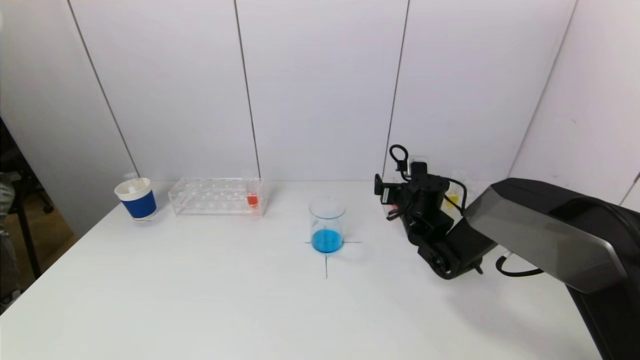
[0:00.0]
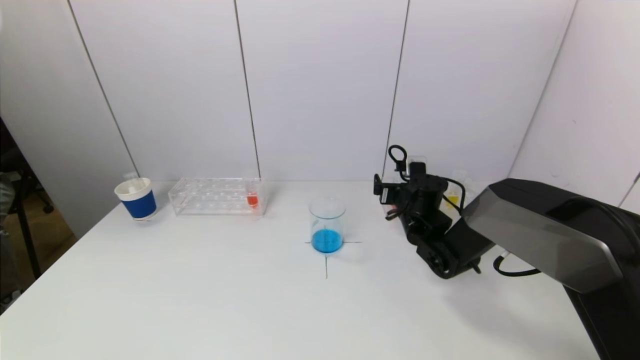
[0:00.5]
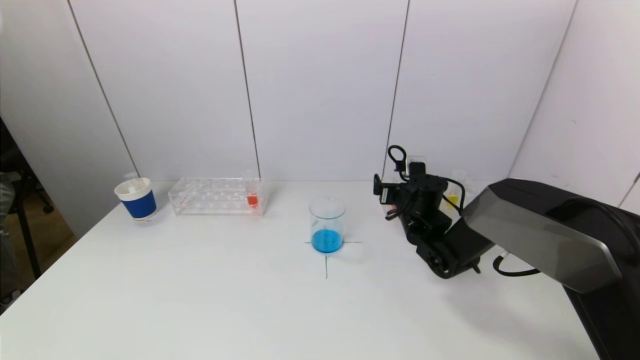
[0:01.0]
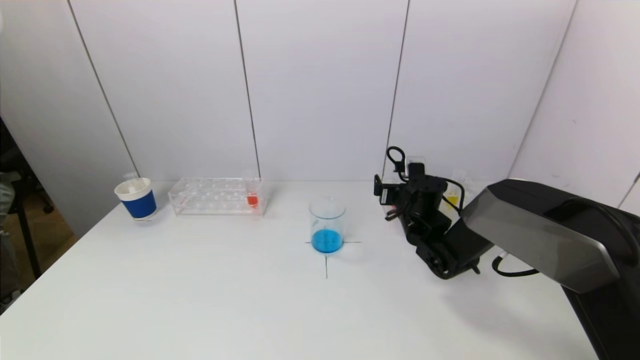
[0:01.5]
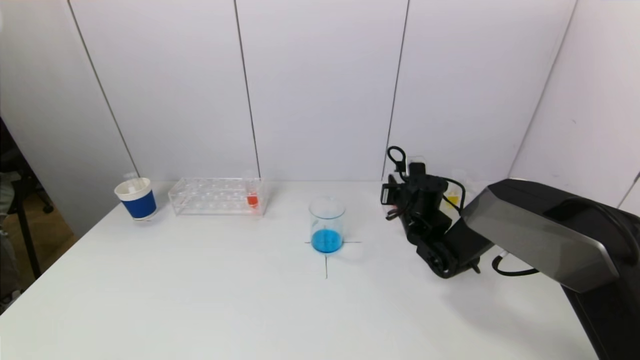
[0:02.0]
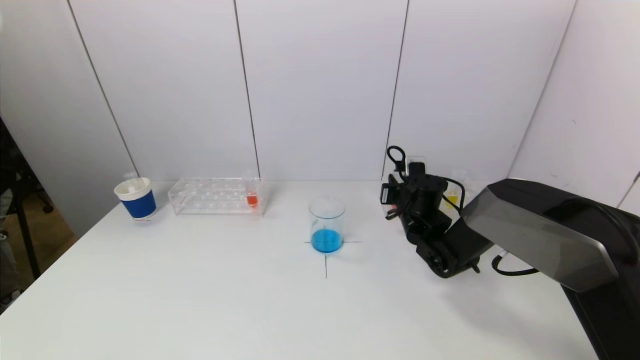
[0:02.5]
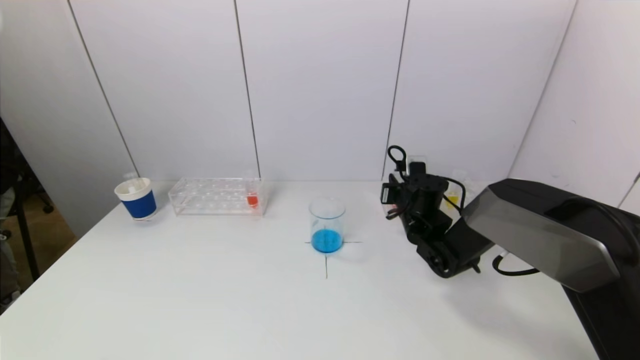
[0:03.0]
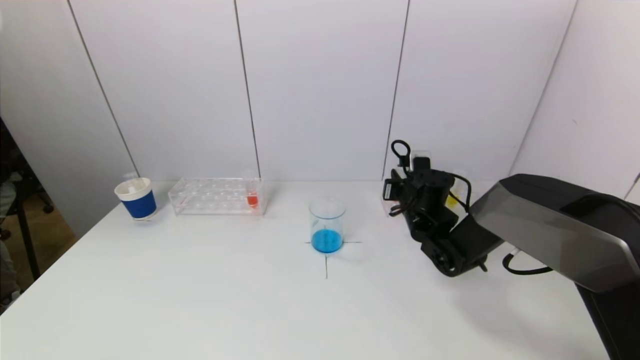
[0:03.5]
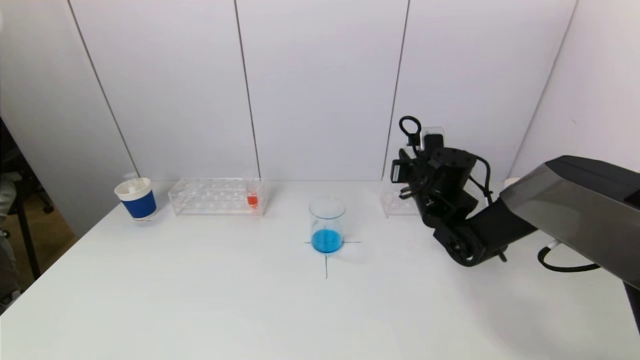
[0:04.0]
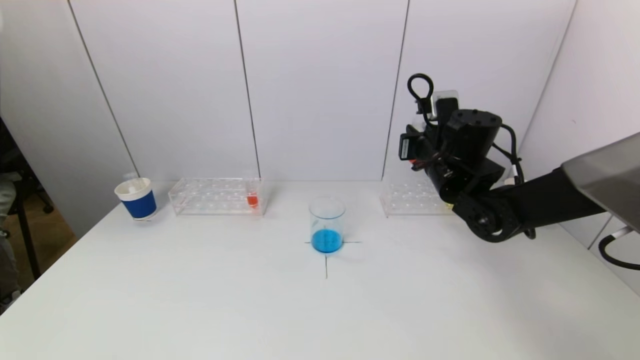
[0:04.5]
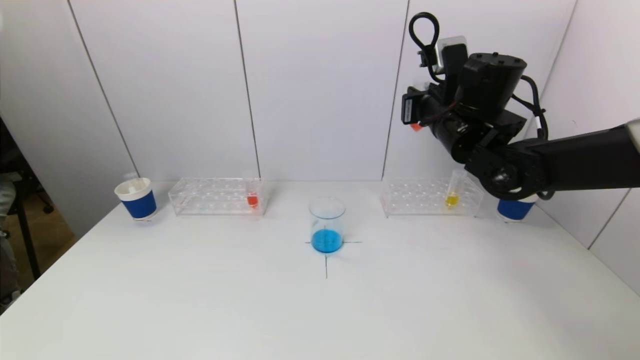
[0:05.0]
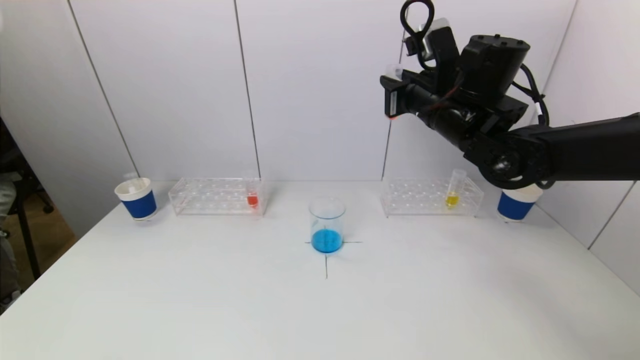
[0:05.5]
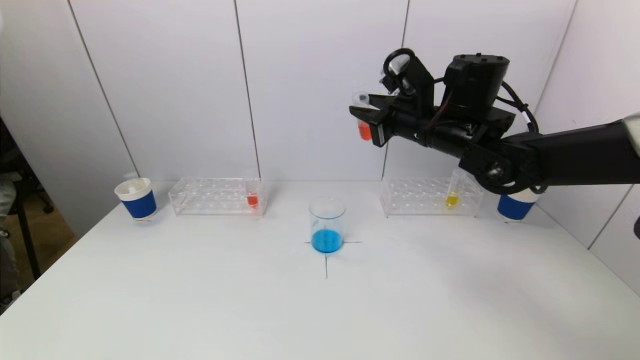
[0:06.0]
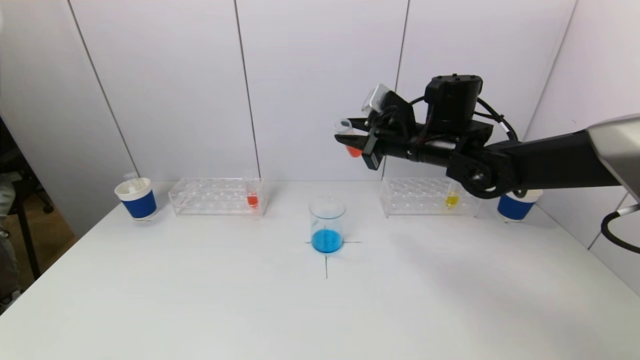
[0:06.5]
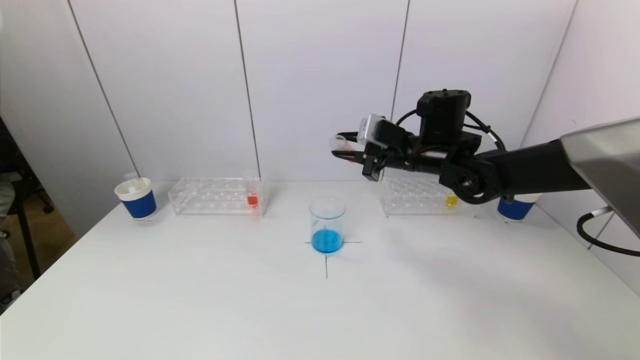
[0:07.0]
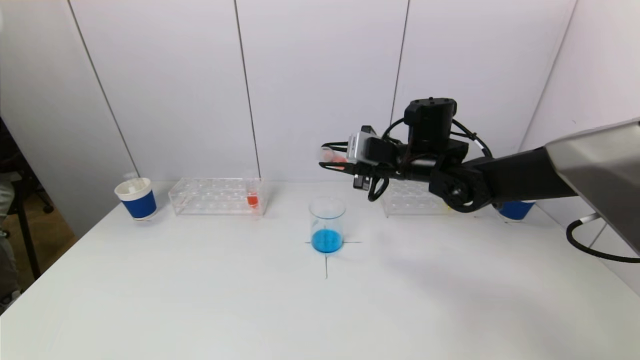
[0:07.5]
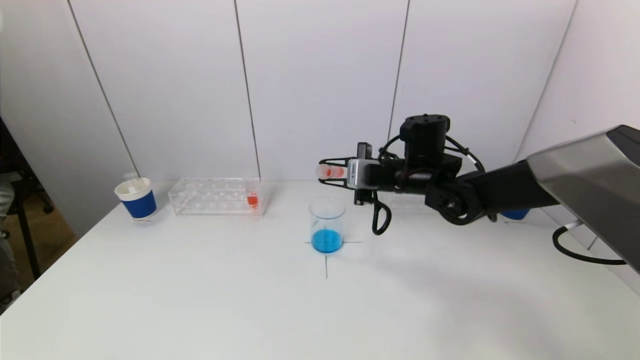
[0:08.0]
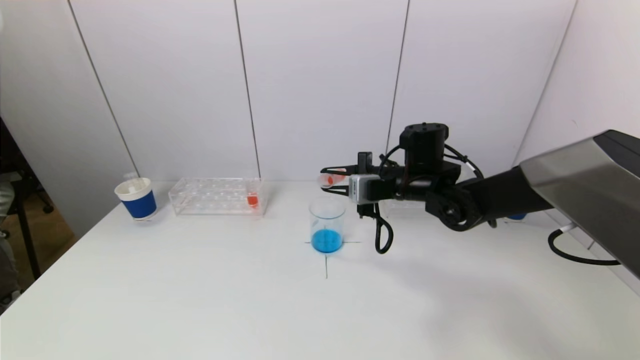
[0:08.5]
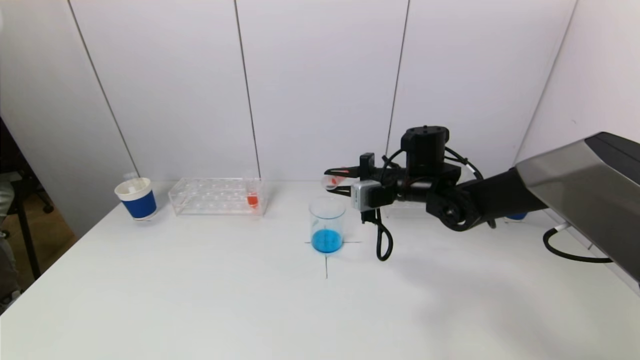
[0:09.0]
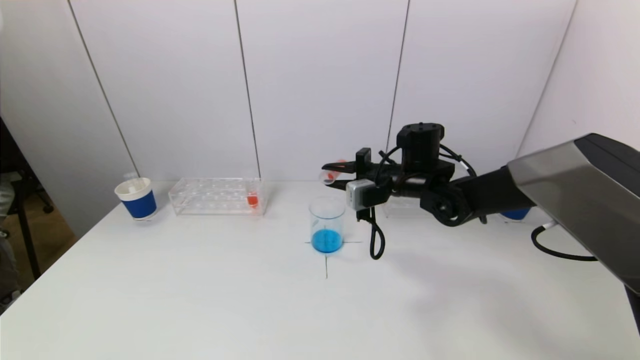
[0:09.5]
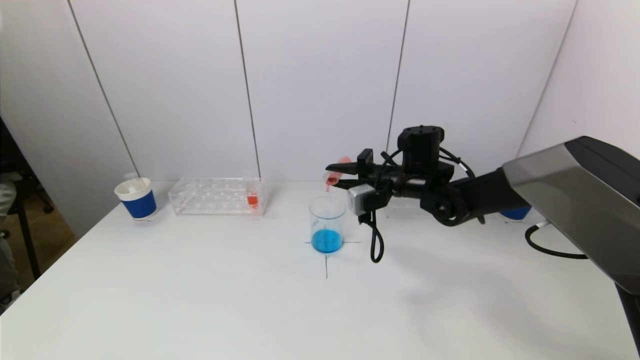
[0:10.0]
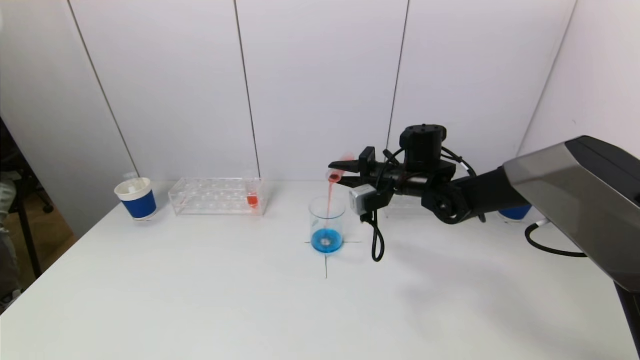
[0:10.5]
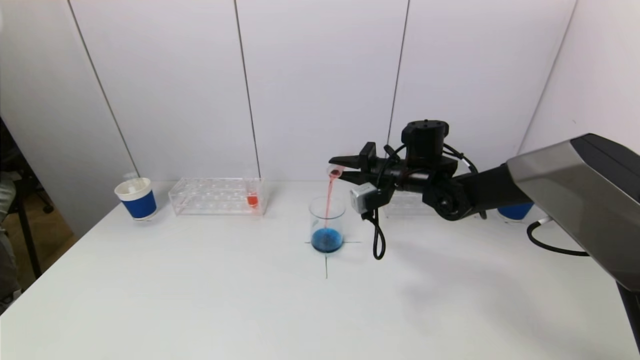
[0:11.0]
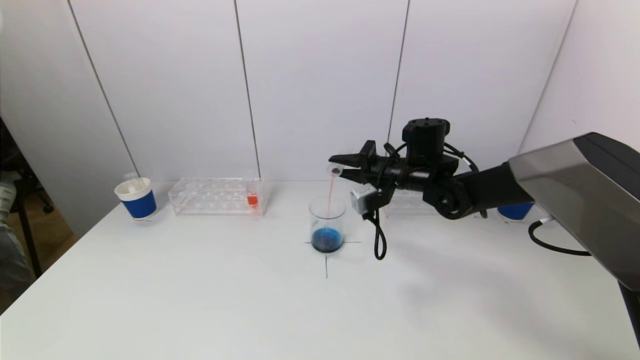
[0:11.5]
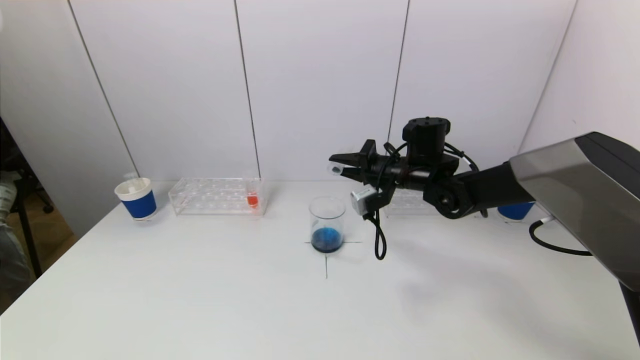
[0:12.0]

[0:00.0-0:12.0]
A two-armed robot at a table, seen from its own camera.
Task of the whole recording: pick up a test tube with pigment on left test tube rack and a test tube with pigment on right test tube rack by grippers and pour them into the beaker.
Step, 0:00.0 to 0:03.0: Grasp the red reagent with the right gripper.
0:00.0 to 0:02.0: The right gripper closes up.
0:02.0 to 0:04.0: The right gripper moves upward, approximately 5 cm.
0:04.0 to 0:06.0: The right gripper moves upward, some 15 cm.
0:06.0 to 0:08.0: The right gripper shifts some 10 cm downward.
0:10.0 to 0:12.0: There are only small adjustments of the grippers.

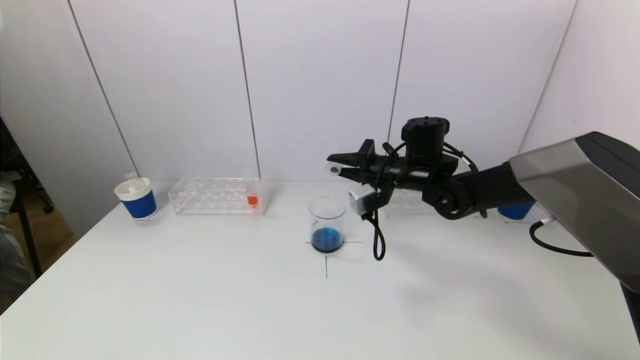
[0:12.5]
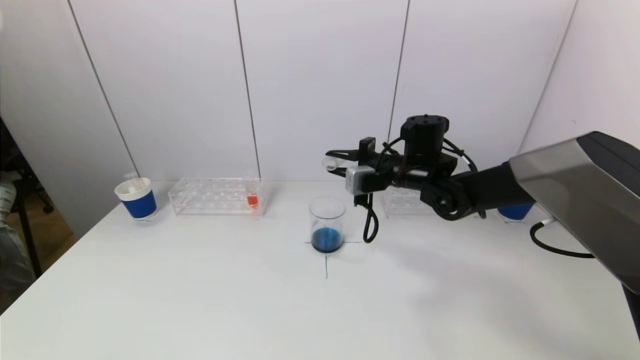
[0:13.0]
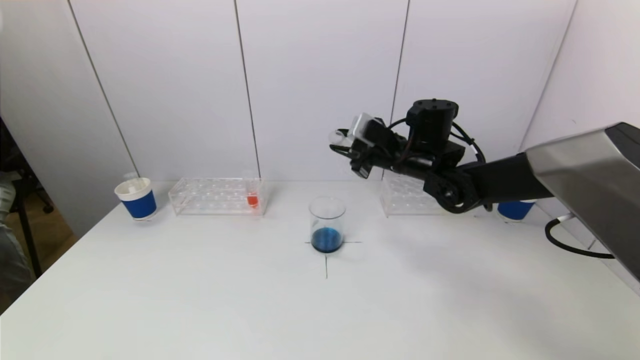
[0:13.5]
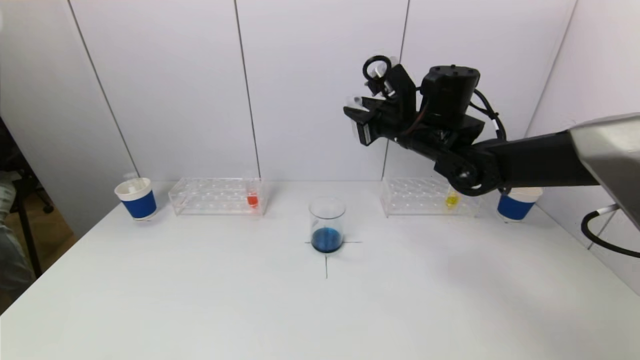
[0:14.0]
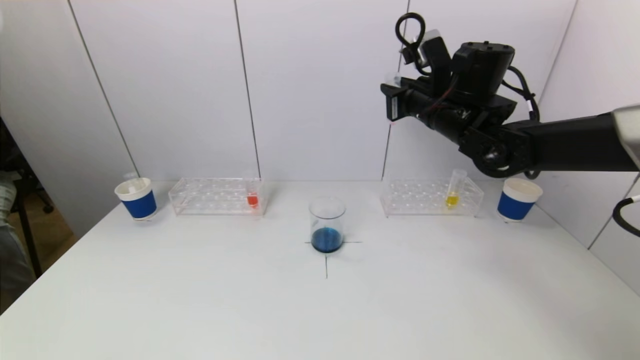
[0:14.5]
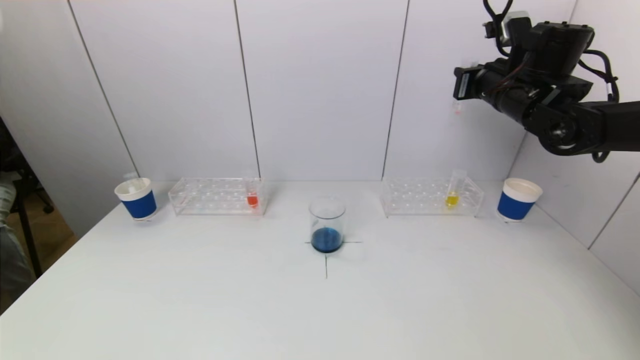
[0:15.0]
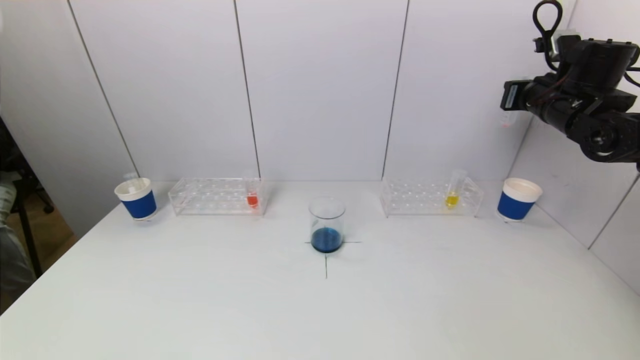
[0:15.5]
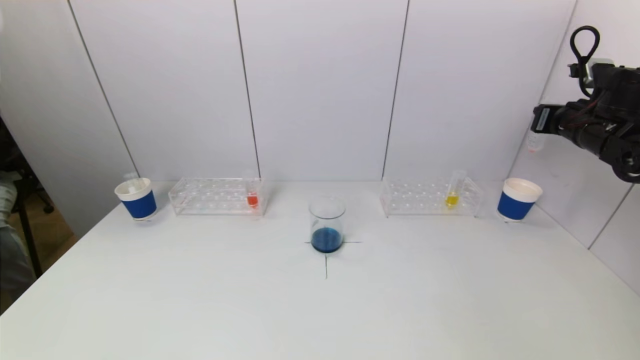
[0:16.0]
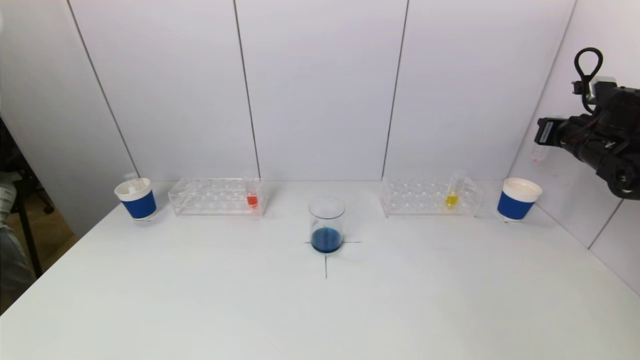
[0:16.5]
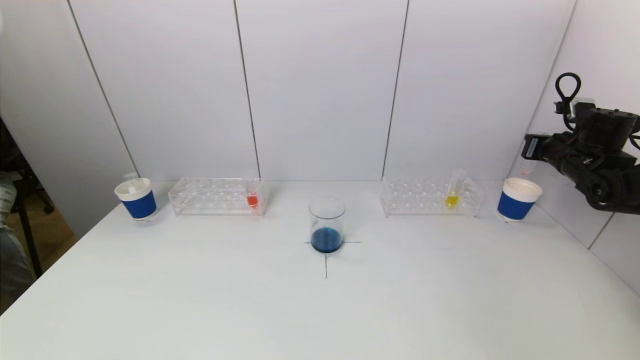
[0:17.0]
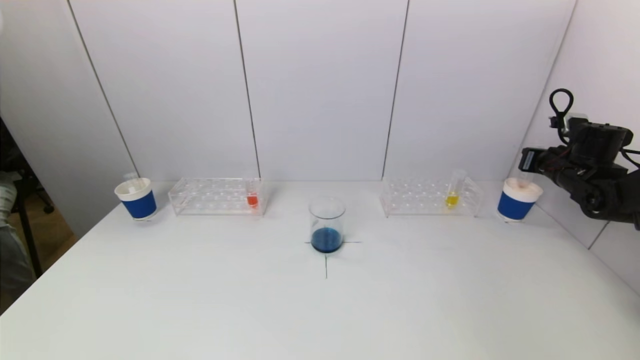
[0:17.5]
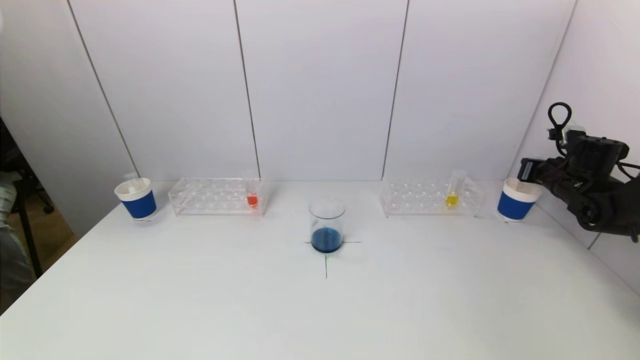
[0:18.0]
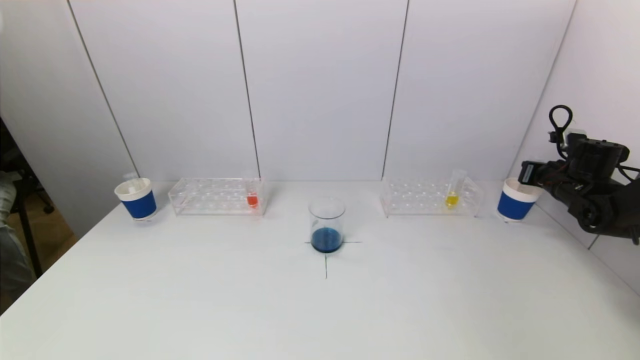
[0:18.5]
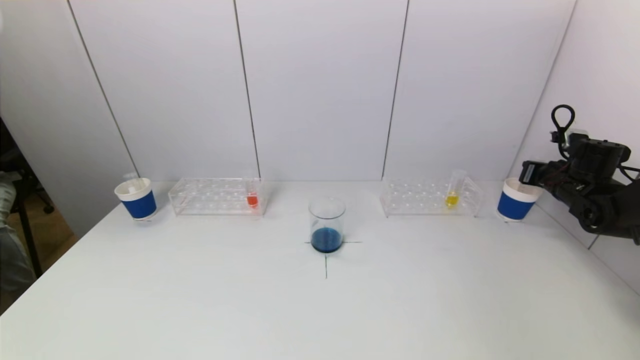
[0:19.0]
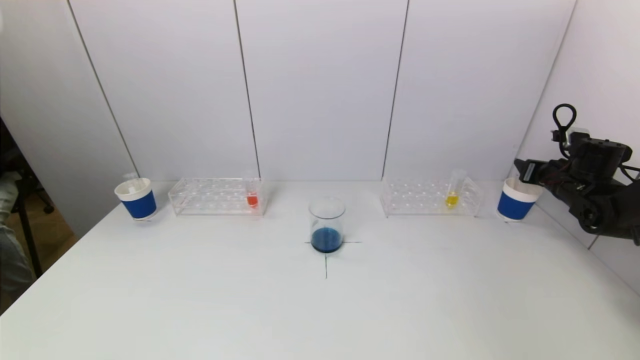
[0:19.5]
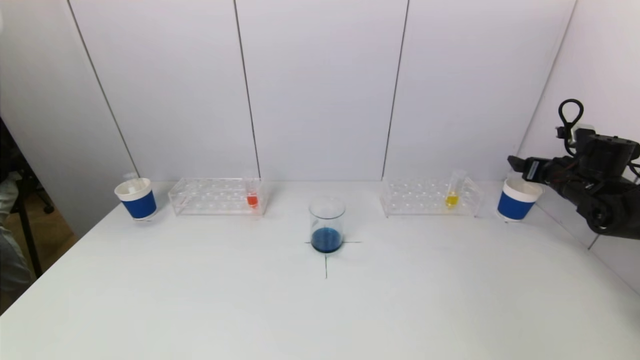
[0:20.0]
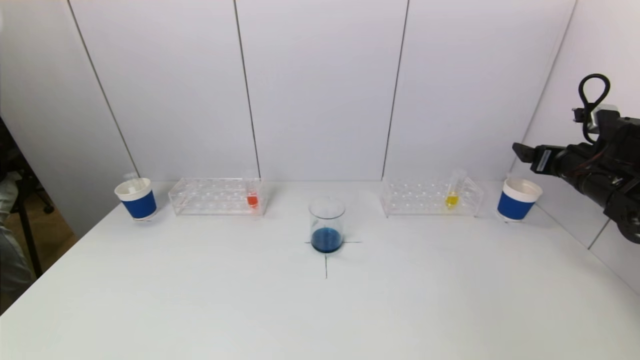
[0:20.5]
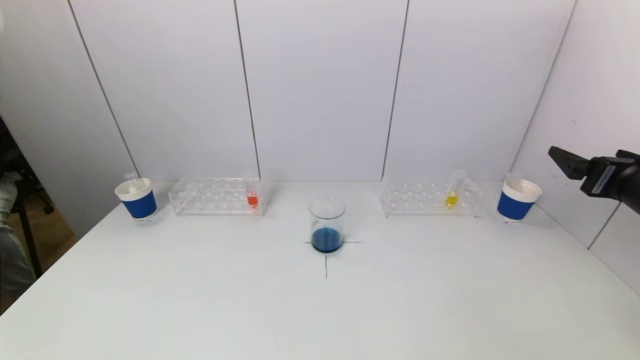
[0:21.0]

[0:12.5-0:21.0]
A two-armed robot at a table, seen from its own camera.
Task of the whole recording: pick up a test tube with pigment on left test tube rack and a test tube with pigment on right test tube rack by grippers and pour them into the beaker.
Step, 0:12.5 to 0:19.5: Place the test tube into the paper cup with the right gripper.
0:12.5 to 0:14.5: The right gripper moves upward, approximately 10 cm.
0:14.5 to 0:16.5: The right gripper is displaced to the right by approximately 25 cm.
0:16.5 to 0:19.0: The right gripper heads downward, covering some 10 cm.
0:19.0 to 0:21.0: The right gripper travels backward, upward and to the left by approximately 25 cm, and opens up.
